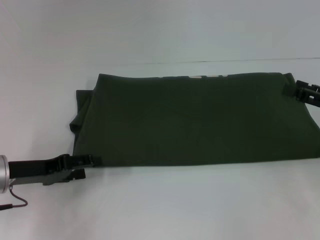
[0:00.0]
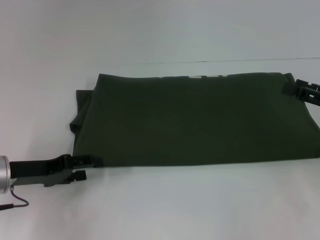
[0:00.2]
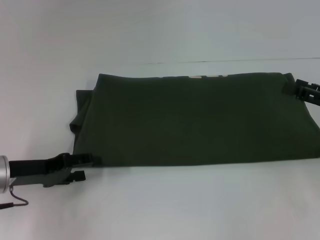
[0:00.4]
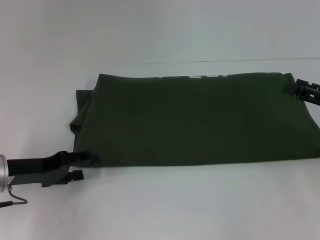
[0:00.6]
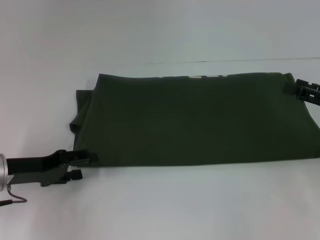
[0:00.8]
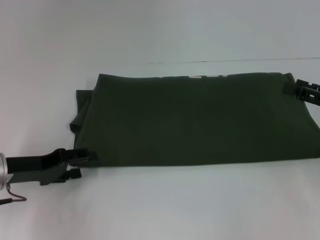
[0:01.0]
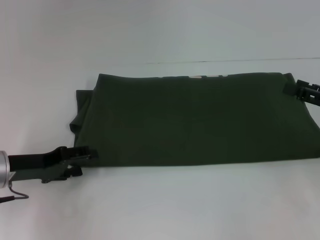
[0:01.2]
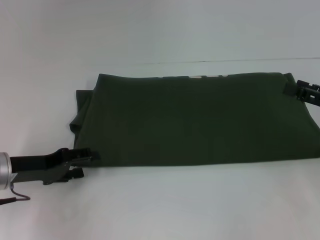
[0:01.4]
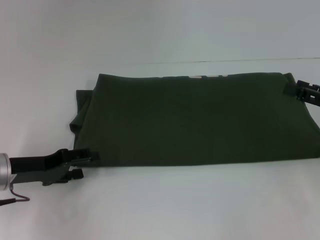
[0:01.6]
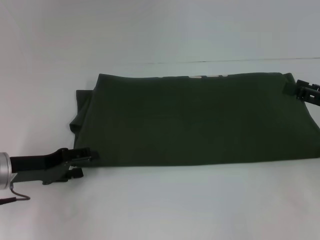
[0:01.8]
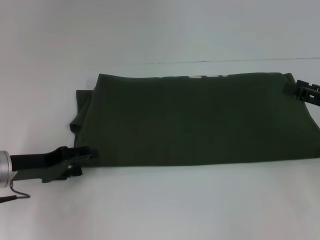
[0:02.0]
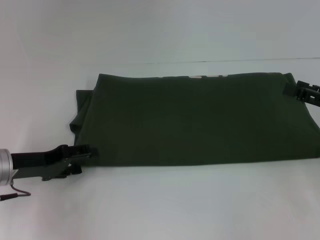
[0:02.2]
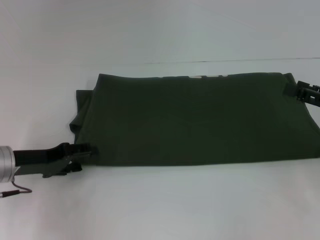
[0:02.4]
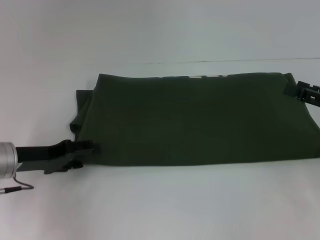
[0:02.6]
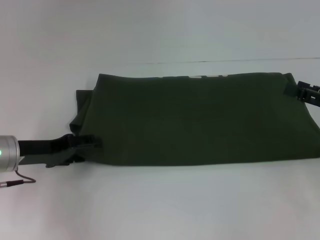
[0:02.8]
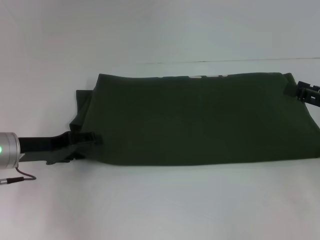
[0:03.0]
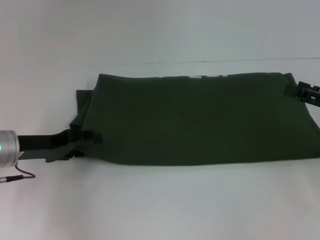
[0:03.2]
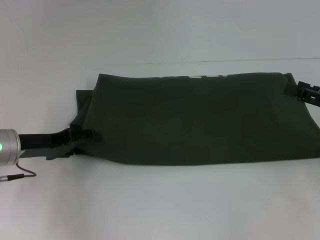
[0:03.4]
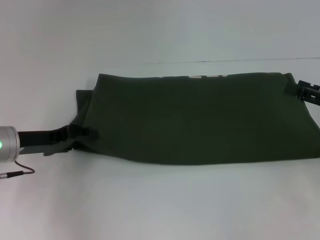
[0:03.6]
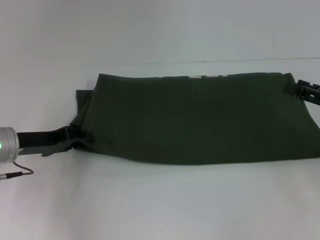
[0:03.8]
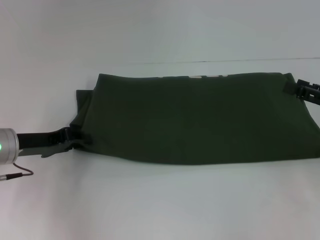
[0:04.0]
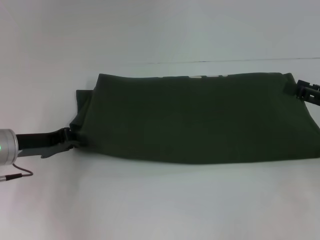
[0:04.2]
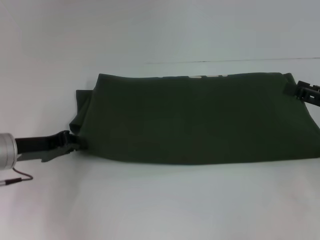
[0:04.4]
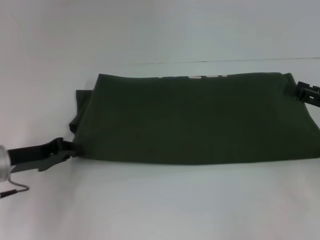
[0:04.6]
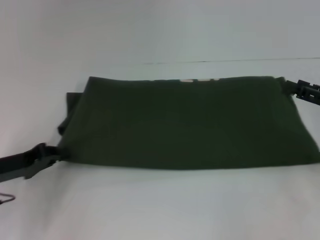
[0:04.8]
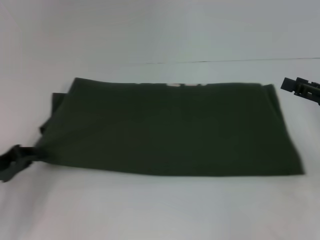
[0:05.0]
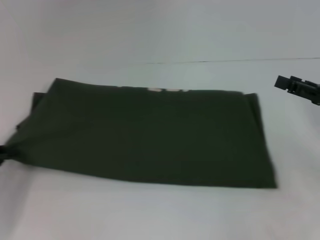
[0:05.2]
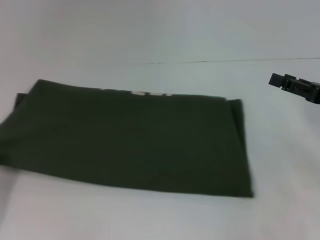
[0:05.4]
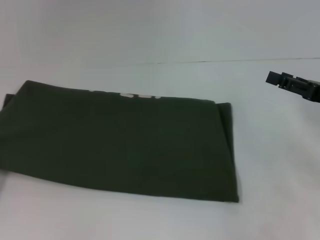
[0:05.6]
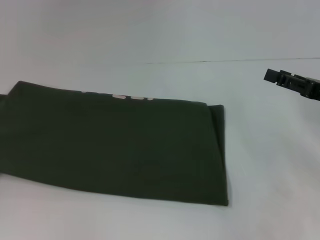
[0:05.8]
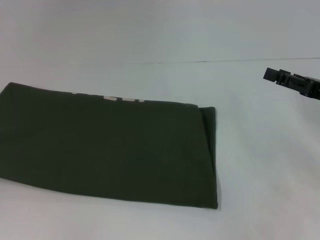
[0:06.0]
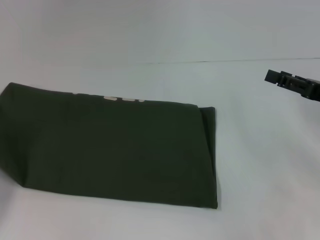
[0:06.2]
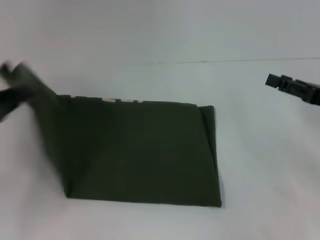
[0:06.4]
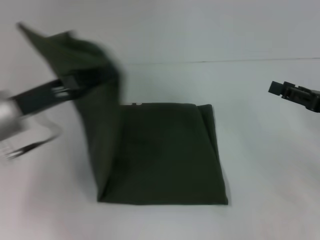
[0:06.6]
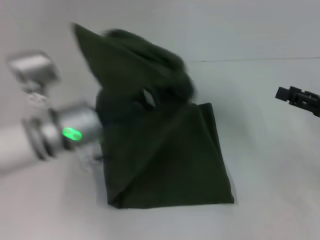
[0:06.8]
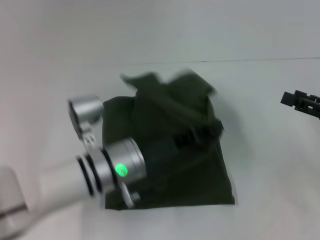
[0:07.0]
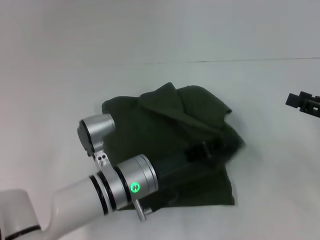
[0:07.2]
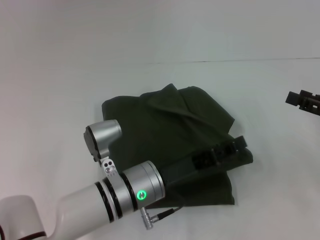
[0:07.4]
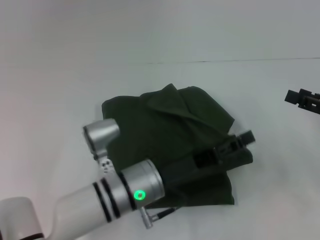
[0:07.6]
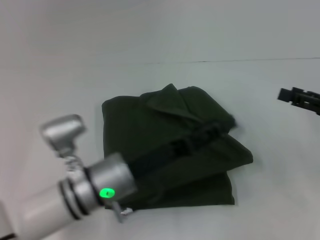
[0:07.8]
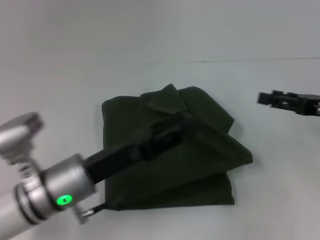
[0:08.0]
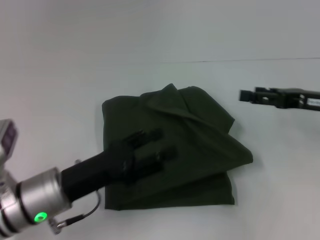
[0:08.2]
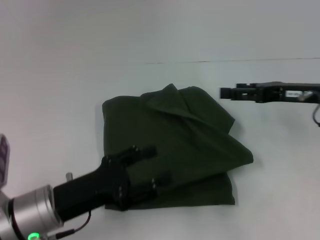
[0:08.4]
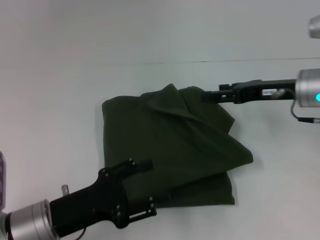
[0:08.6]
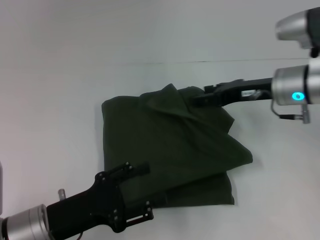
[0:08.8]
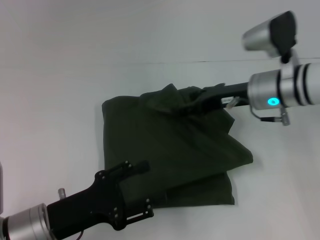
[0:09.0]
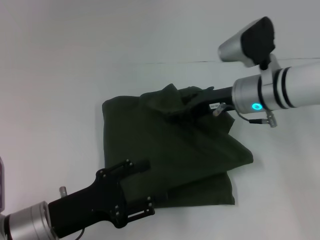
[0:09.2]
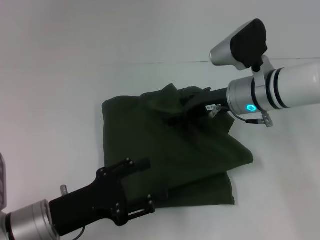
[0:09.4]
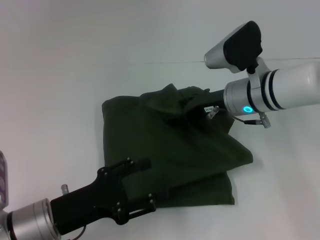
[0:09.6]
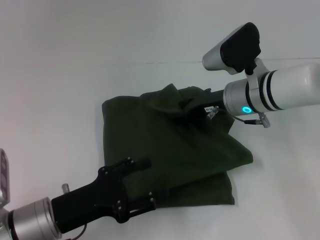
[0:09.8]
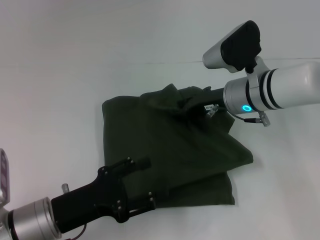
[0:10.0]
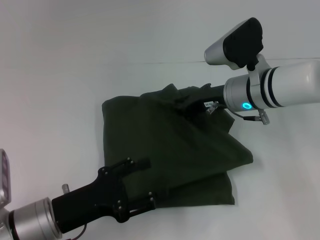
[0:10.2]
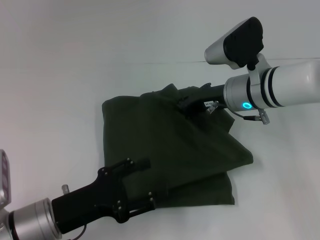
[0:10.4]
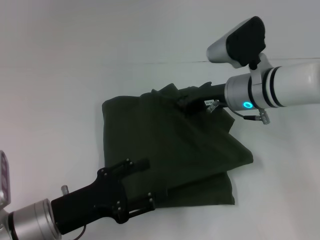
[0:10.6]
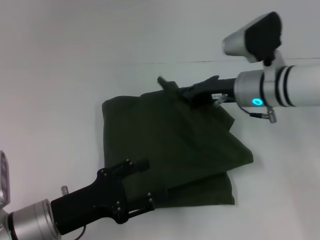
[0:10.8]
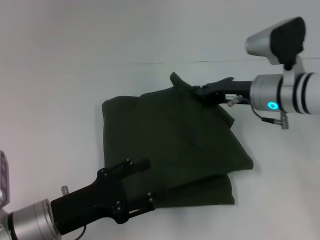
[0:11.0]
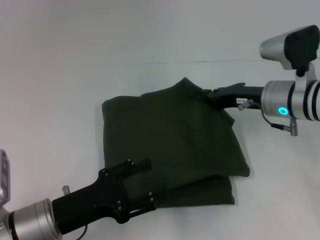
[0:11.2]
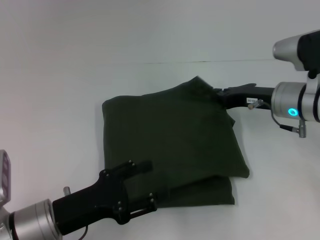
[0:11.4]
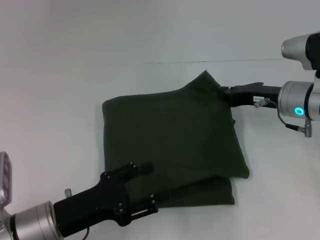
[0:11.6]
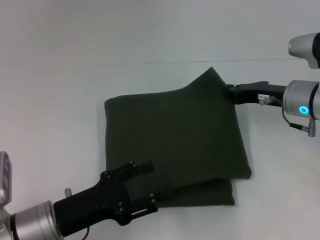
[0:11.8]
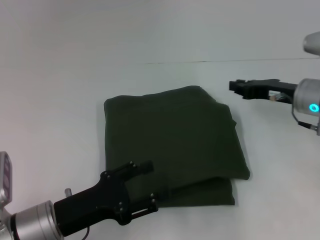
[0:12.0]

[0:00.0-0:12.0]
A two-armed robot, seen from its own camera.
0:00.0 to 0:03.0: The grippers move only a little.
0:03.0 to 0:04.4: The left gripper closes its fingers.
0:04.4 to 0:06.0: The left gripper heads to the left and backward, covering approximately 20 cm.
0:06.0 to 0:07.6: The left gripper heads to the right, covering about 35 cm, and opens.
0:07.6 to 0:09.0: The right gripper travels to the left and forward by about 20 cm; the left gripper goes some 15 cm to the left, and opens up.
0:09.0 to 0:10.4: The right gripper closes its fingers.
0:10.4 to 0:12.0: The right gripper moves to the right, some 10 cm.

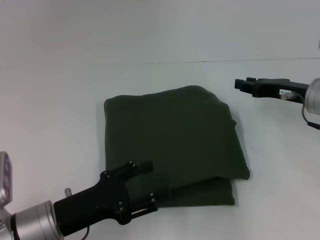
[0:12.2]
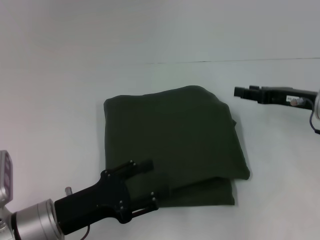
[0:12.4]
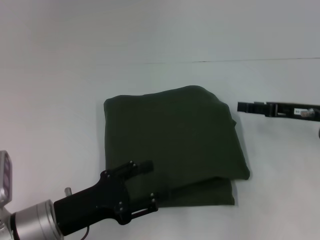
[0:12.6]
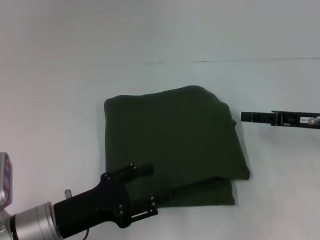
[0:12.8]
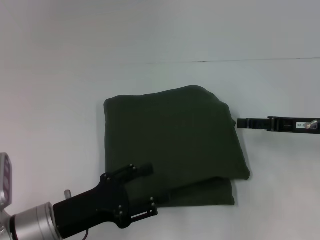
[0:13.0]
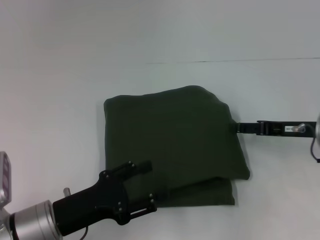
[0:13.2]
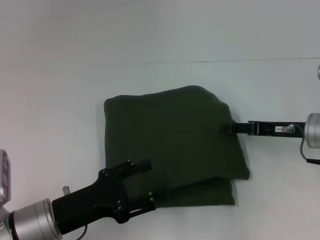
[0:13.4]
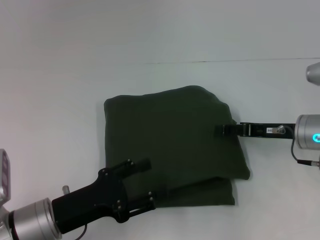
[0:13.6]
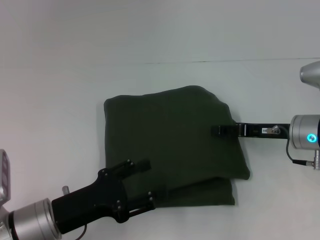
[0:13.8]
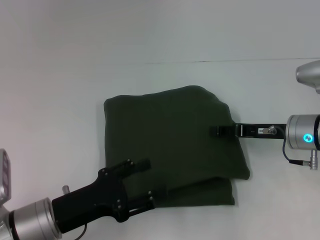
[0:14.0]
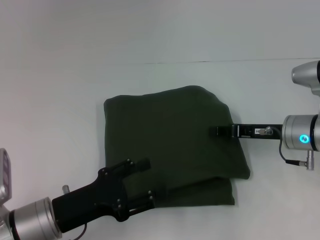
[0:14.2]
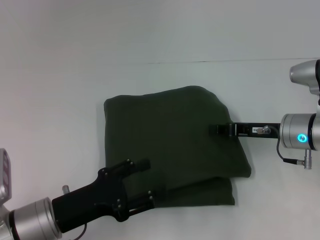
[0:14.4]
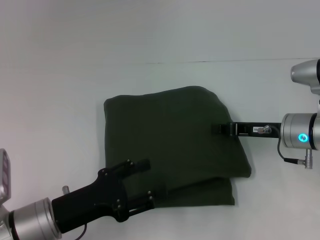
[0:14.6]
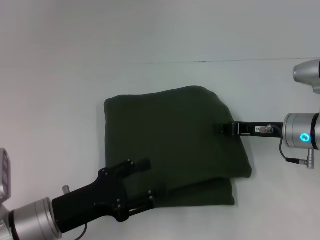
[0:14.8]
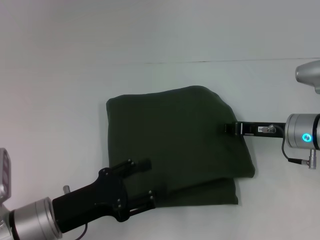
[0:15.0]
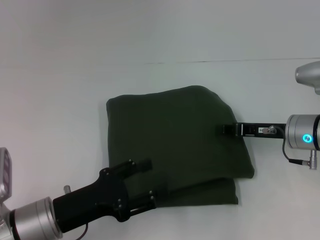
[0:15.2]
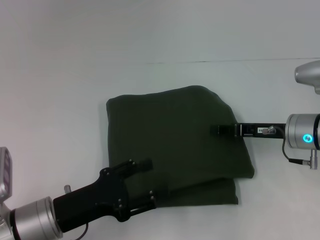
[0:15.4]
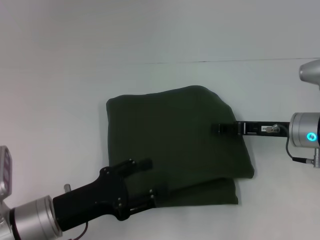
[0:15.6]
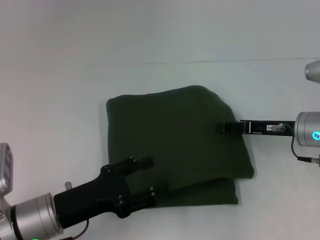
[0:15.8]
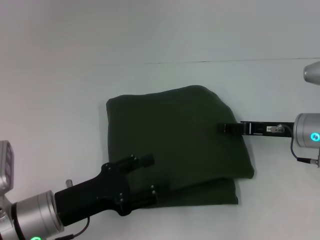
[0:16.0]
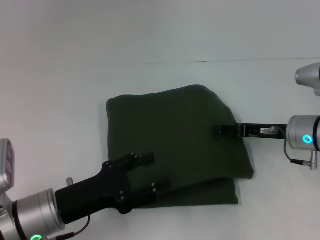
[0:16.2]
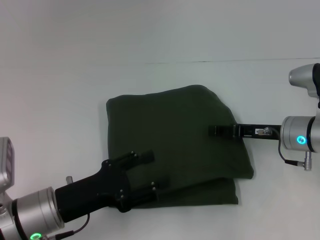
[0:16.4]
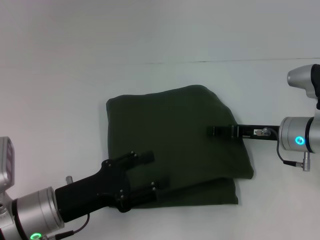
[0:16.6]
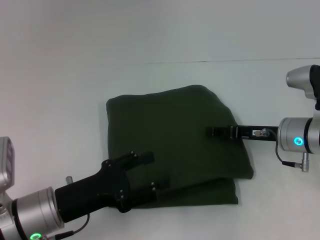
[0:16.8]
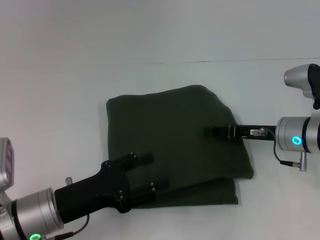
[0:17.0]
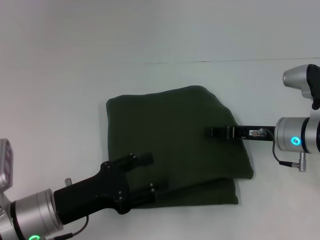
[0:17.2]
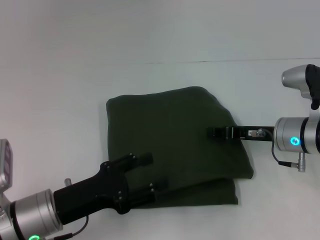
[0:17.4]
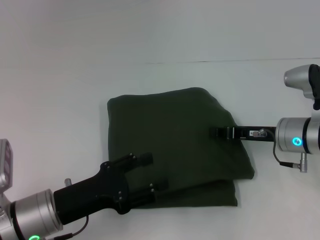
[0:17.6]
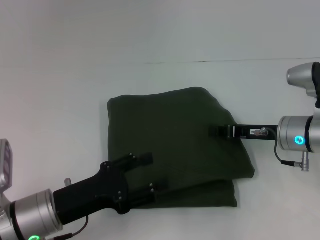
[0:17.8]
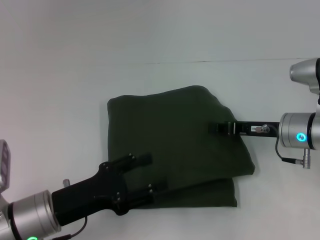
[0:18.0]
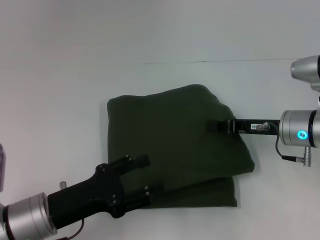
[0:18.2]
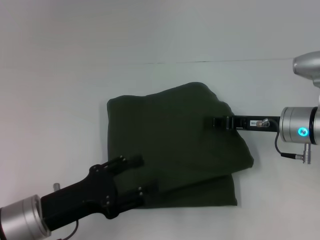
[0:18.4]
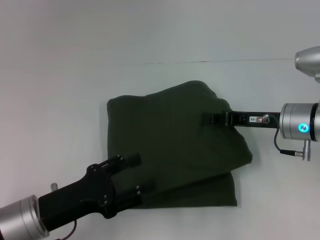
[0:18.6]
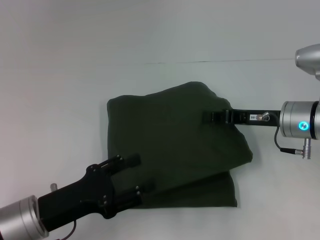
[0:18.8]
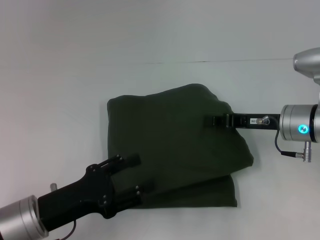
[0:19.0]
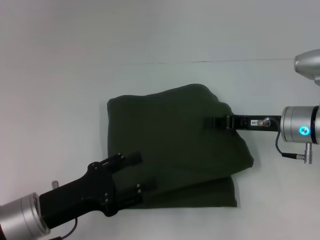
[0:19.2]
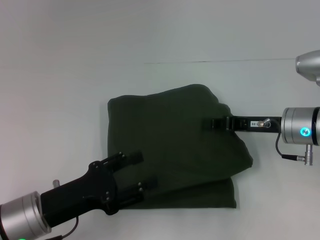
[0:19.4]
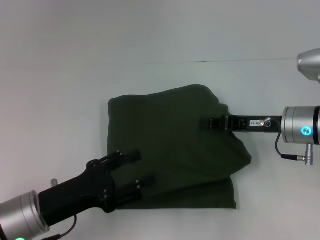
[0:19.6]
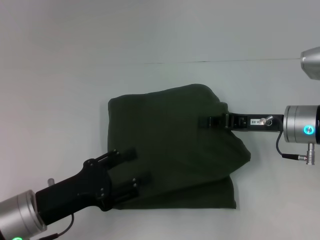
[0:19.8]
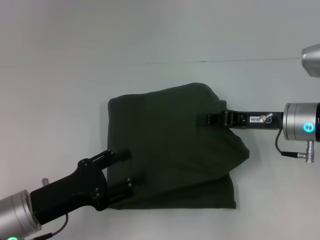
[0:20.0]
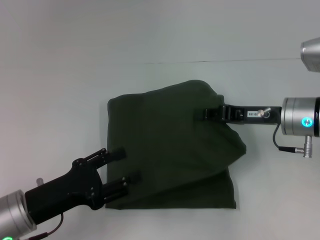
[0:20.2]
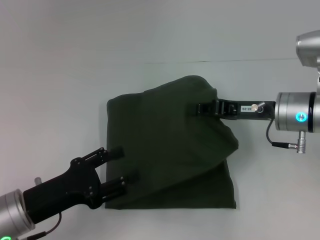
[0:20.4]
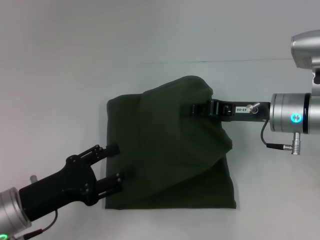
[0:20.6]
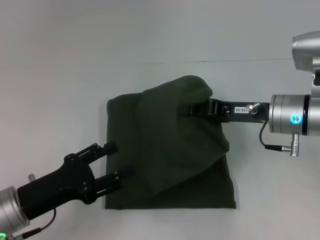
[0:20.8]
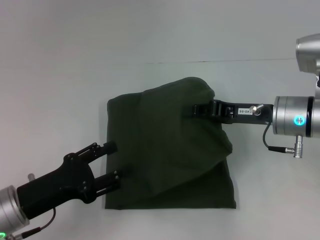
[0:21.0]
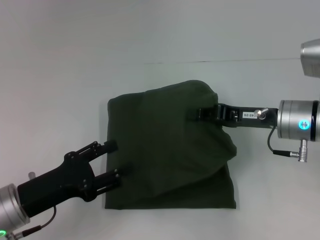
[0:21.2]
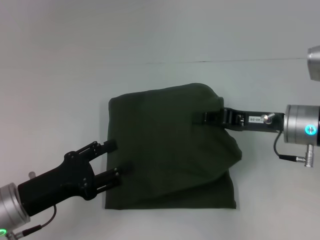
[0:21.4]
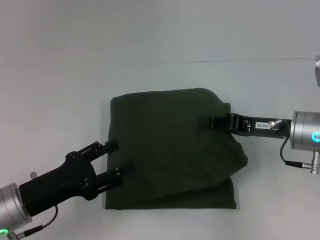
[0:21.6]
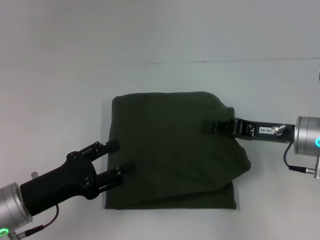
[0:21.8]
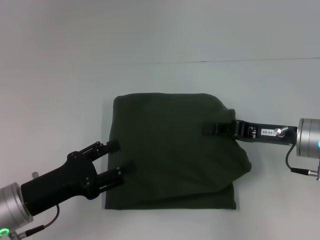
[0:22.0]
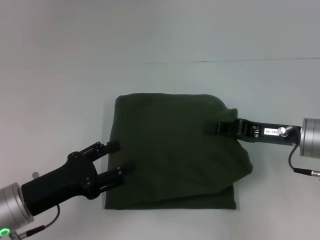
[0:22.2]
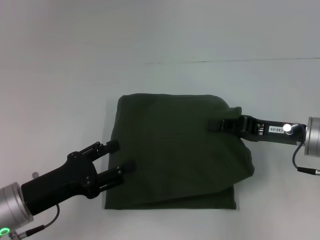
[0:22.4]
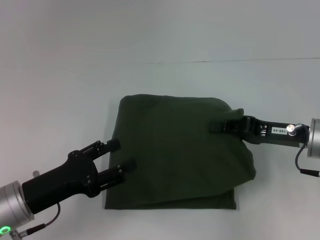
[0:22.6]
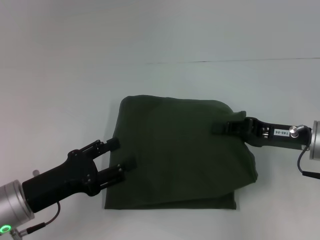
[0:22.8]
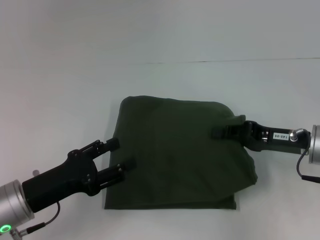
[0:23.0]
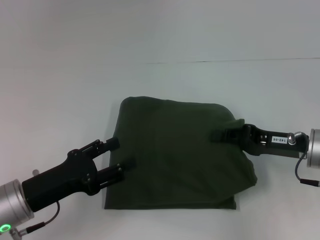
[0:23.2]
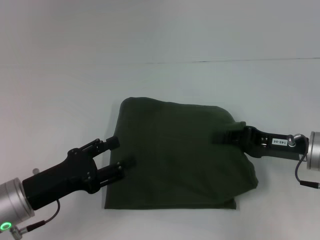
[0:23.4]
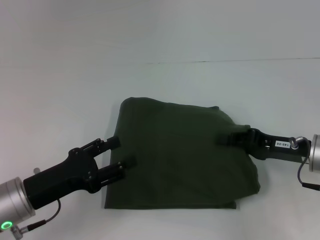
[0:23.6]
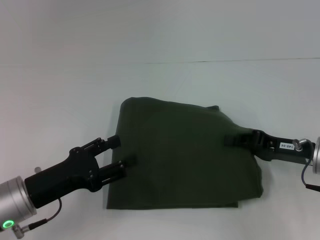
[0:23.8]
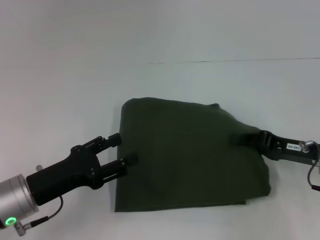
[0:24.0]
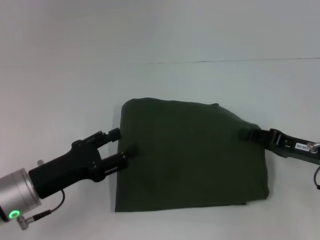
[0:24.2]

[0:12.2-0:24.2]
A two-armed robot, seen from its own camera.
0:12.2 to 0:13.8: The right gripper opens up.
0:13.8 to 0:15.2: The right gripper closes up.
0:15.2 to 0:16.6: The right gripper opens up.
0:16.6 to 0:18.2: The right gripper closes its fingers.
0:18.2 to 0:21.2: The grippers move only a little.
0:21.2 to 0:22.6: There are only small adjustments of the grippers.
0:22.6 to 0:24.2: The right gripper shifts by about 5 cm.
